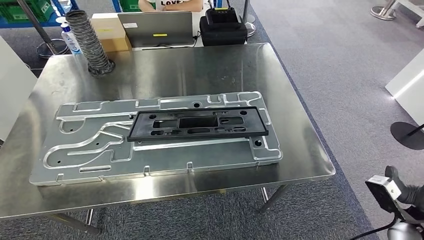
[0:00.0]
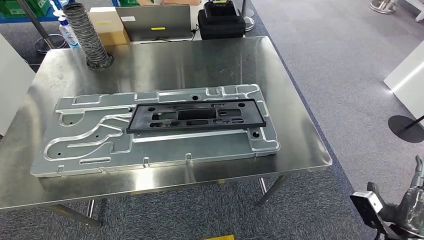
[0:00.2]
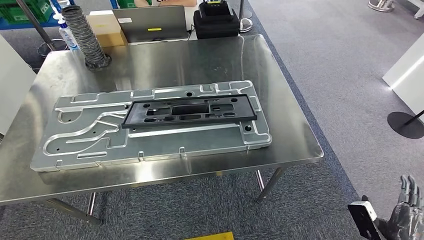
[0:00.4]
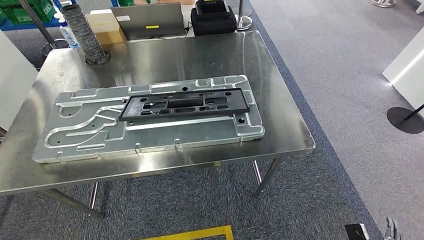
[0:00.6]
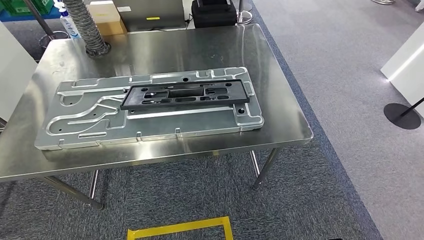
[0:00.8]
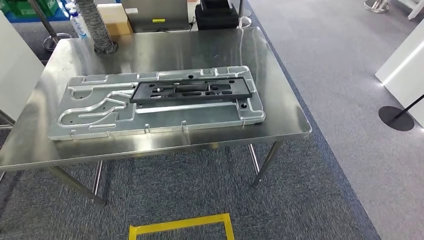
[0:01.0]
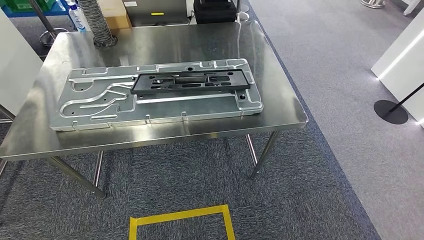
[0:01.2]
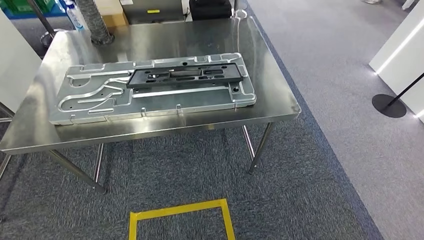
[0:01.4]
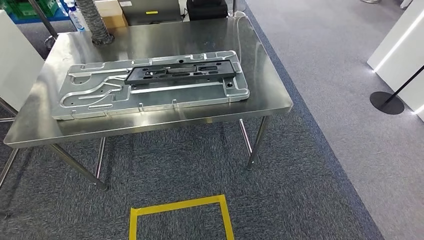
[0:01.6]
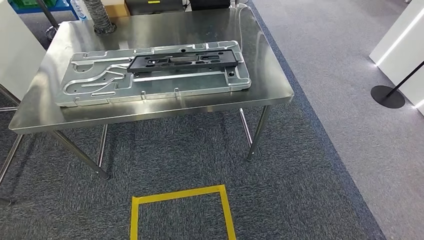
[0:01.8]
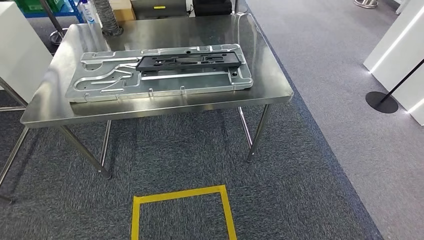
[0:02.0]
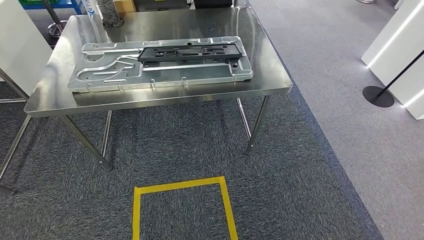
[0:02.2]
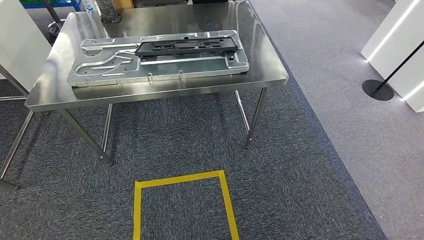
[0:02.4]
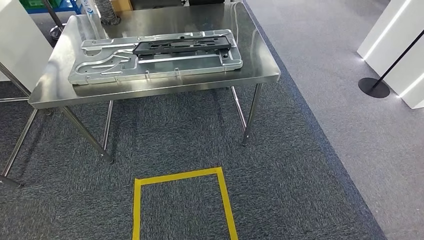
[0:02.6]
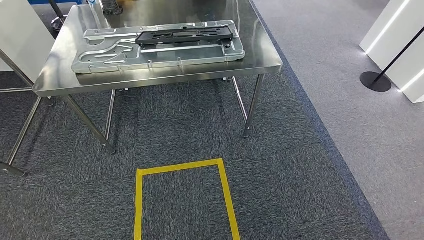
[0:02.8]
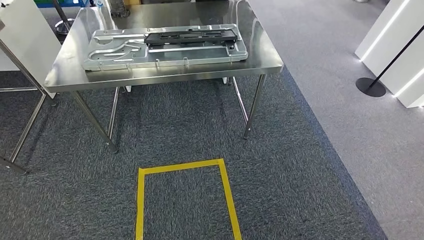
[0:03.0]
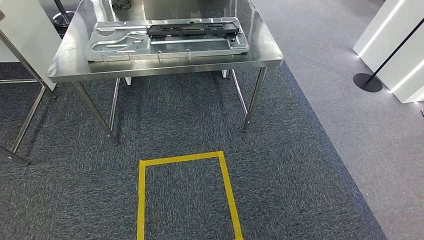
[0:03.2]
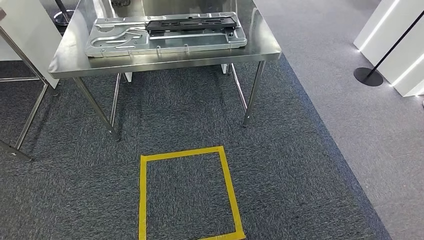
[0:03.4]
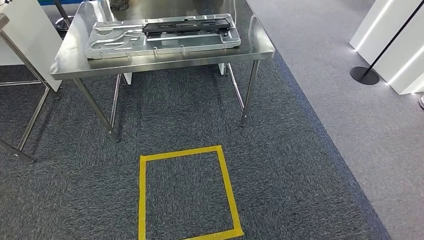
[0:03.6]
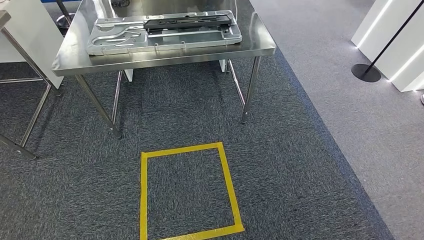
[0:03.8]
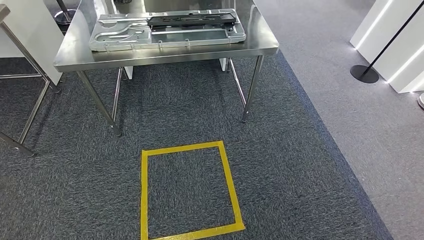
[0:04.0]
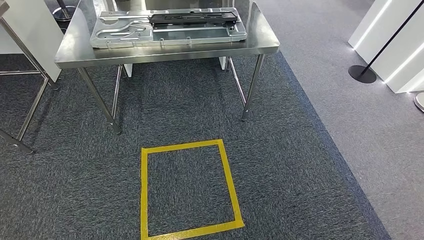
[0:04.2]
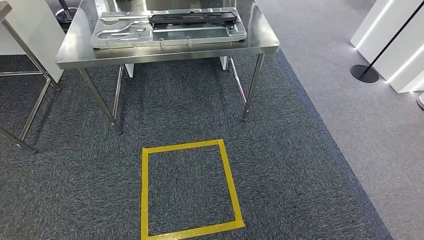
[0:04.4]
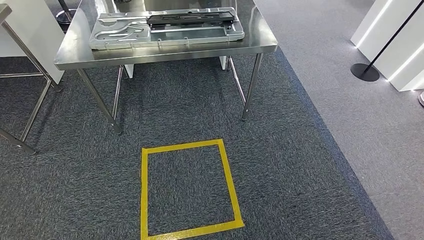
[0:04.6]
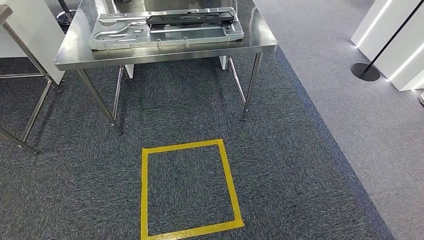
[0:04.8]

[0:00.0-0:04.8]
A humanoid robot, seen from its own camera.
Step, 0:00.6 to 0:04.8: Return to the initial position at the shelf.
